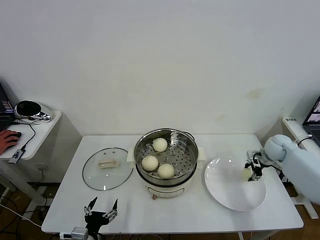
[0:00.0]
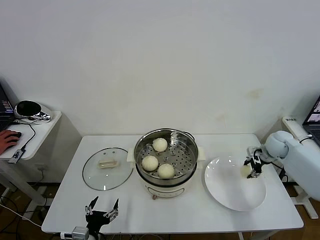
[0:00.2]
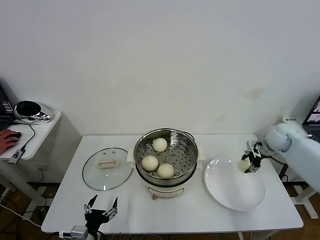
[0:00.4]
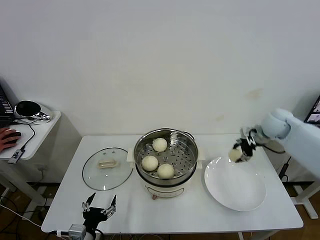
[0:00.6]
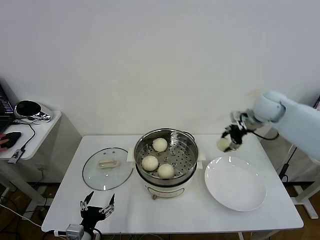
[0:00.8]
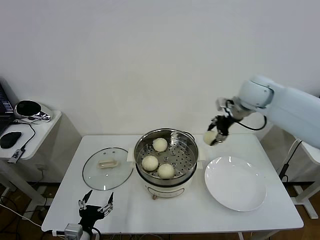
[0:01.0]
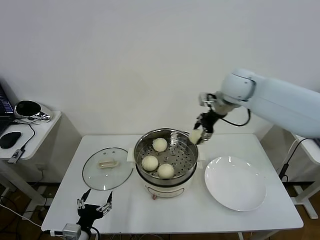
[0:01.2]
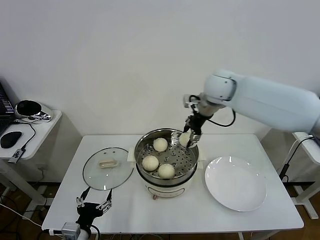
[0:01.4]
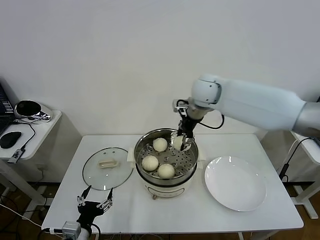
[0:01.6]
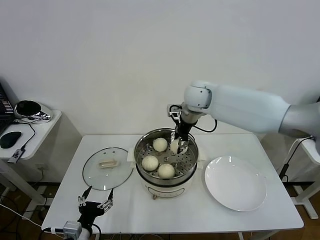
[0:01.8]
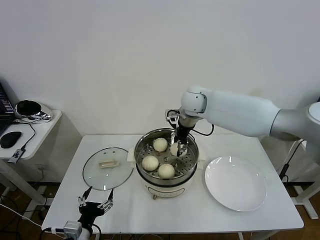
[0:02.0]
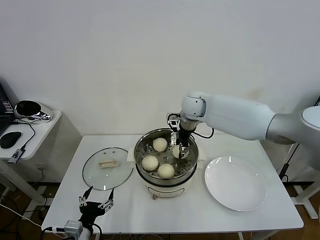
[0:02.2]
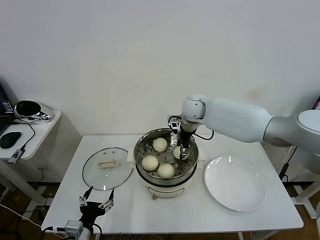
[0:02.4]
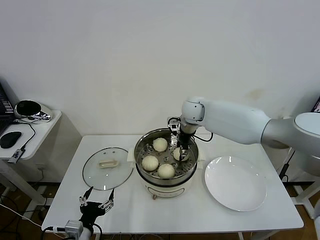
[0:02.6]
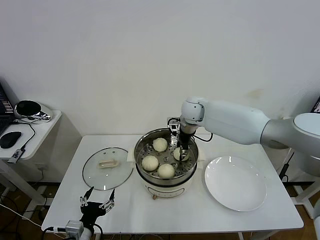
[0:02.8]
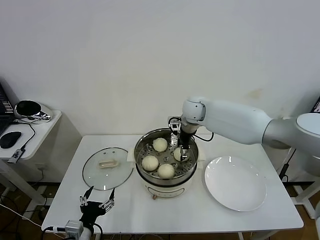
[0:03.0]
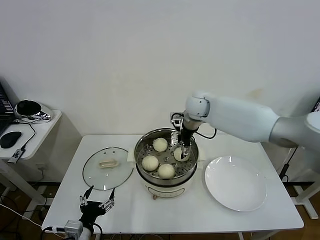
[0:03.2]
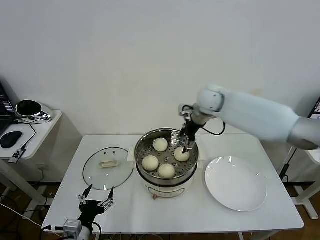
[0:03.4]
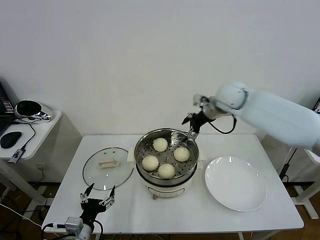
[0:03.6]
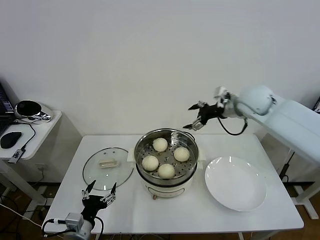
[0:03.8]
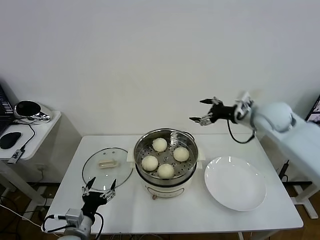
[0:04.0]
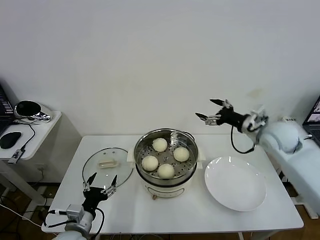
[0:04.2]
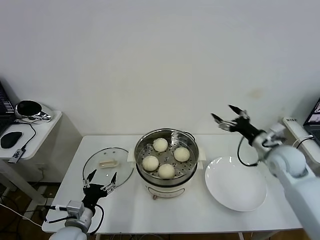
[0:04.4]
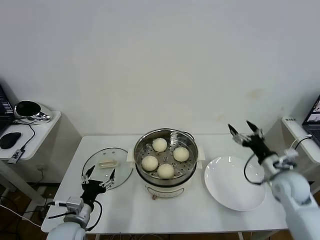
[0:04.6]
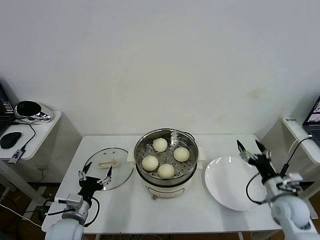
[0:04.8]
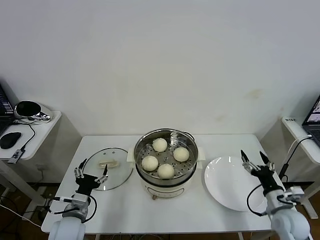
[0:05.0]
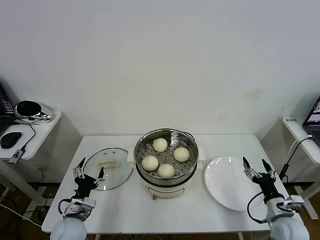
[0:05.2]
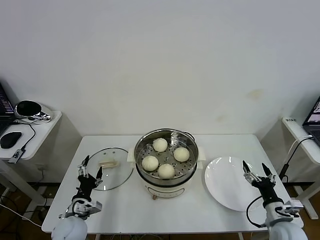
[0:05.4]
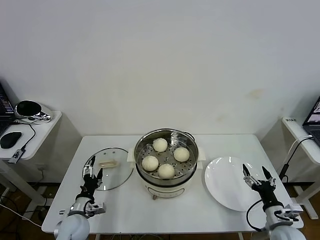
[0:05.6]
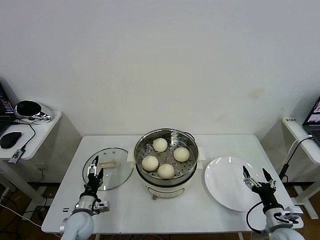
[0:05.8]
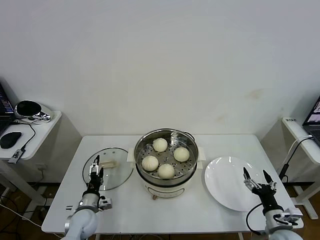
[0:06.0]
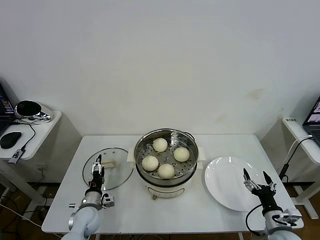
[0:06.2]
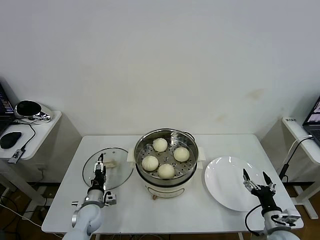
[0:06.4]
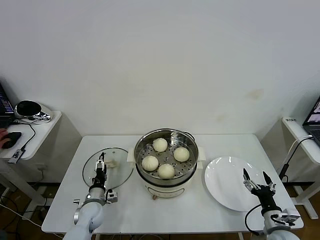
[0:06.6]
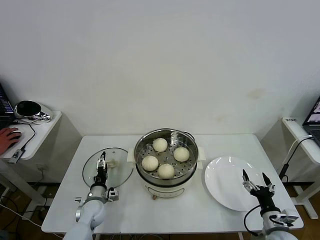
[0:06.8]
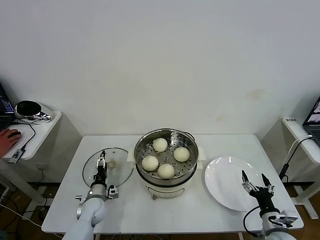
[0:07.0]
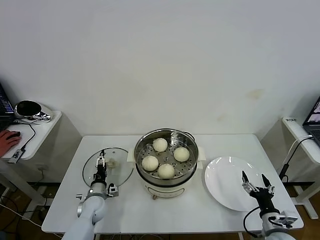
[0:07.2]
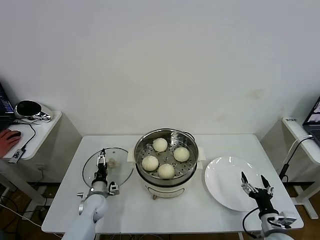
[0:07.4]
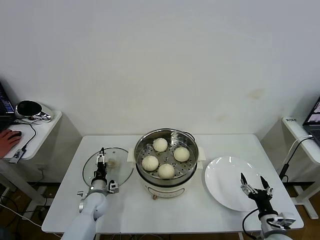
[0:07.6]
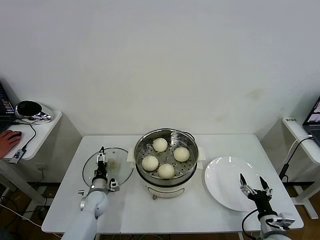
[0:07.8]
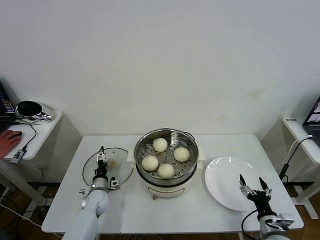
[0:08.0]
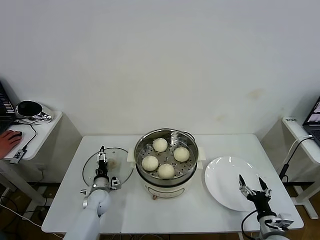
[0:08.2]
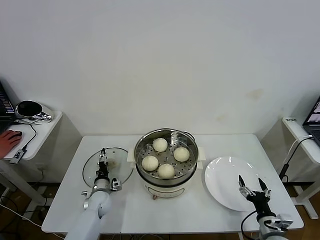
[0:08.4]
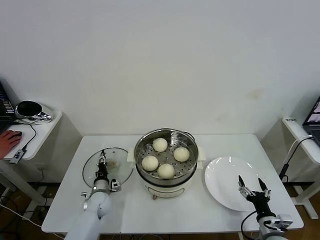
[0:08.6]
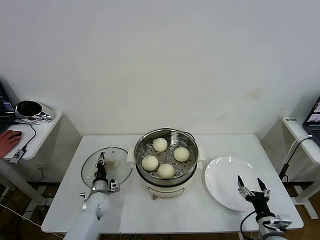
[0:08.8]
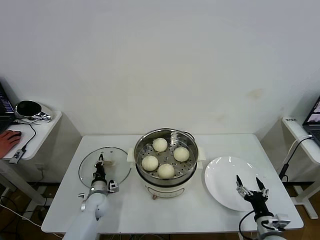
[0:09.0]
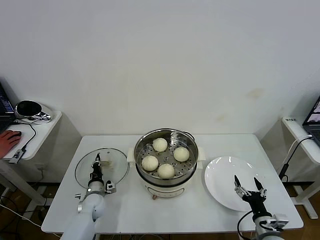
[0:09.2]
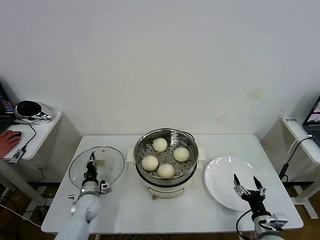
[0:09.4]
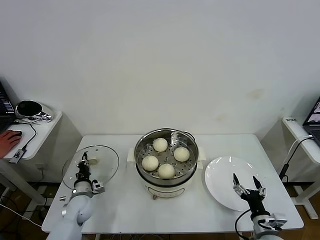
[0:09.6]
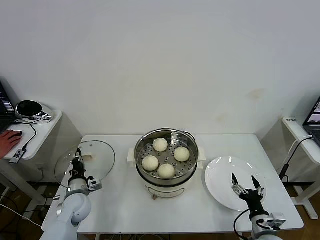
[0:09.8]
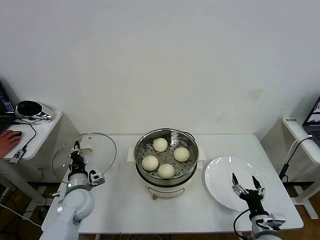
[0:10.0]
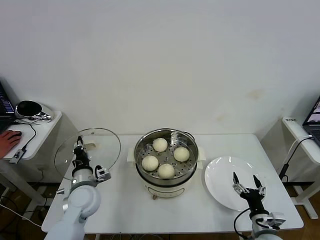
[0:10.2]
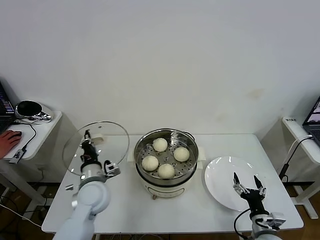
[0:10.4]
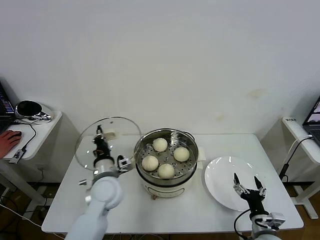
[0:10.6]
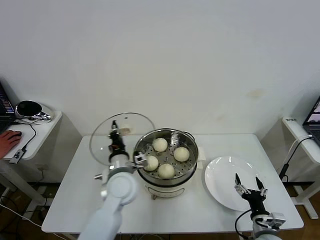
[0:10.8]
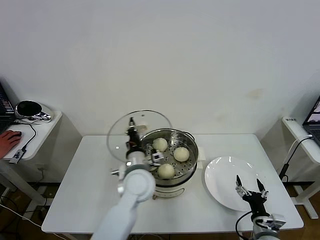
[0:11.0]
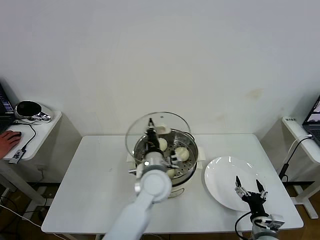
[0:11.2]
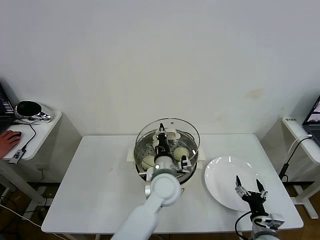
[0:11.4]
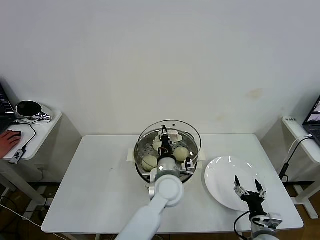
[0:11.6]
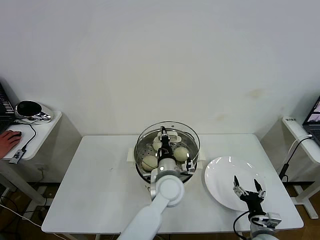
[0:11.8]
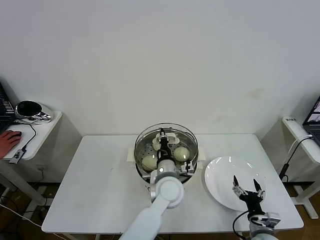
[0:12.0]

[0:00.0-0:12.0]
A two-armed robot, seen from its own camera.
Task of the whole recording: take steamed baozi put them in steamer then cover it.
Step, 0:00.0 to 0:03.4: Place the baozi on the steamer with right gripper.
Step, 0:03.6 to 0:09.0: Grasp the pot lid with left gripper.
0:00.0 to 0:01.6: The right gripper moves to the left and upward, approximately 40 cm.
0:01.6 to 0:03.0: The right gripper is displaced downward by some 10 cm, and opens its fingers.
0:03.0 to 0:04.4: The left gripper heads forward, covering roughly 5 cm. Meanwhile the right gripper moves to the right and backward, about 30 cm.
0:04.4 to 0:06.0: The left gripper travels downward and forward by about 15 cm. Meanwhile the right gripper is displaced backward and downward by approximately 25 cm.
0:06.0 to 0:07.6: The left gripper goes roughly 10 cm forward.
0:07.6 to 0:09.0: The left gripper closes its fingers.
0:09.0 to 0:10.4: The left gripper heads upward, covering about 20 cm.
0:10.4 to 0:12.0: The left gripper shifts some 25 cm to the right.

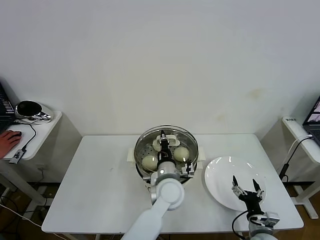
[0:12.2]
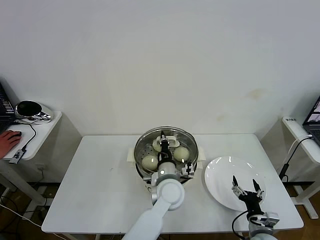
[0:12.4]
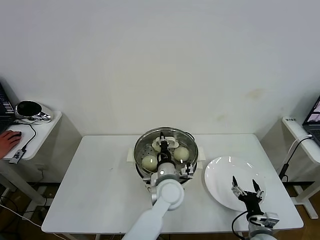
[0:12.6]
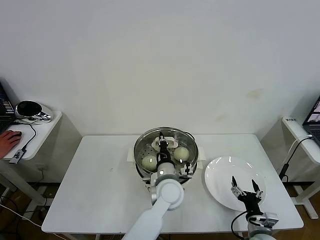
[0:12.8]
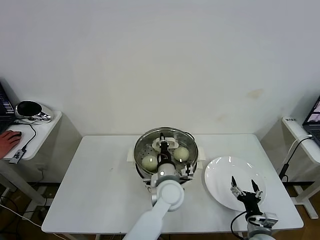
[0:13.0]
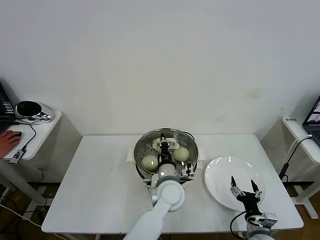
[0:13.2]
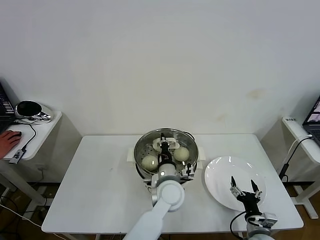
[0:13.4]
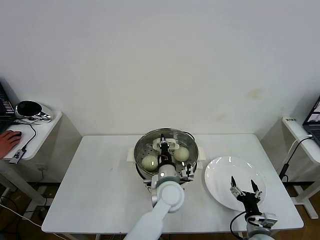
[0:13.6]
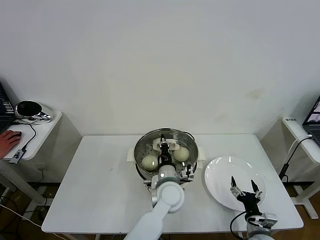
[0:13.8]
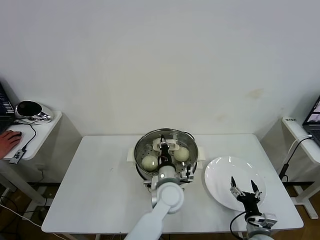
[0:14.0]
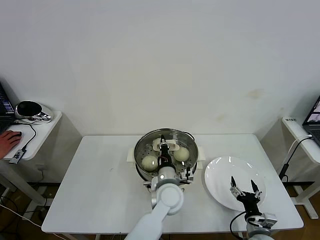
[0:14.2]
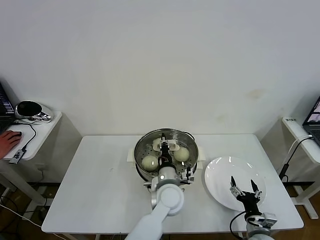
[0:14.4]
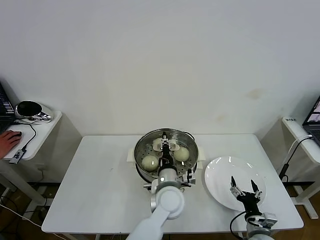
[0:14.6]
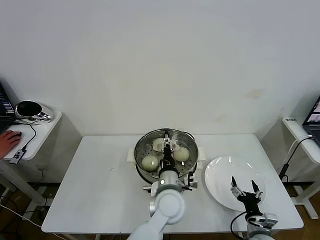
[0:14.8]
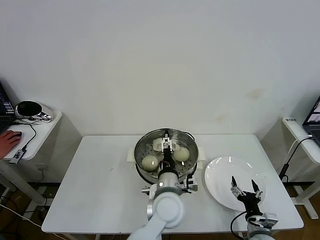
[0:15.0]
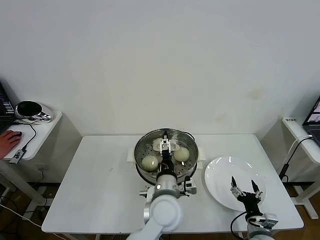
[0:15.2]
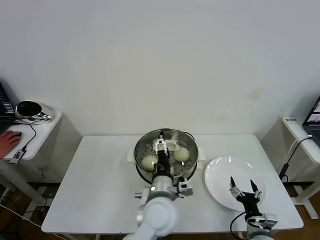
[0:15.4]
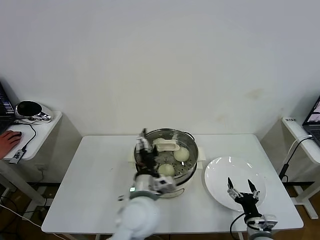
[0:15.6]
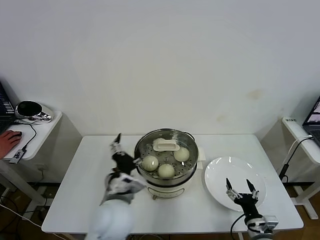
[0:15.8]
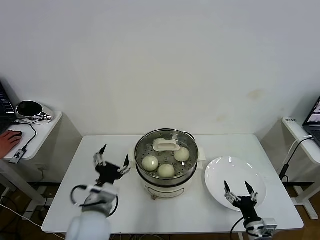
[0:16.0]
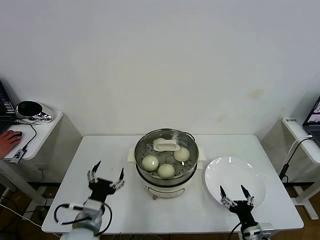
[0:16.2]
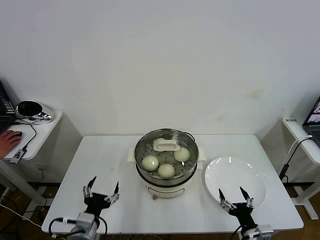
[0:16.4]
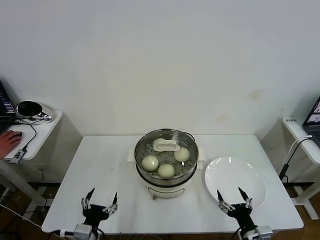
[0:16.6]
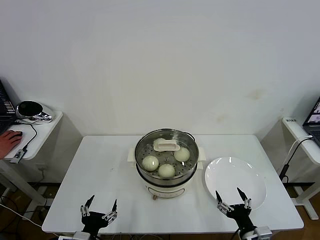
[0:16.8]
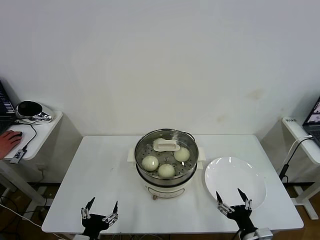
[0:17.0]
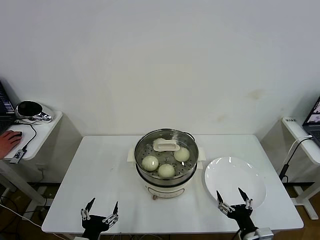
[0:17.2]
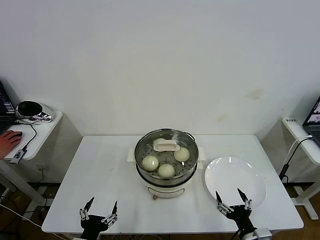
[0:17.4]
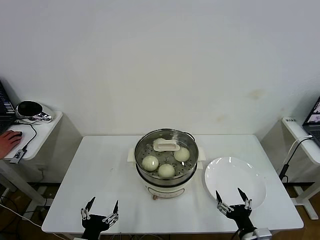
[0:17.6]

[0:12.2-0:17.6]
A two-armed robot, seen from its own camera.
Task of the whole recording: take steamed baozi put them in steamer then cover it.
Step, 0:12.2 to 0:15.0: Place the pot lid on the steamer with left gripper.
0:12.2 to 0:13.6: Neither gripper changes place.
0:13.6 to 0:15.0: The left gripper moves approximately 5 cm, and opens its fingers.
0:15.0 to 0:16.2: The right gripper moves roughly 5 cm; the left gripper shifts roughly 25 cm to the left.
0:16.2 to 0:17.6: The right gripper shifts by about 5 cm, while the left gripper moves backward and downward, roughly 10 cm.
